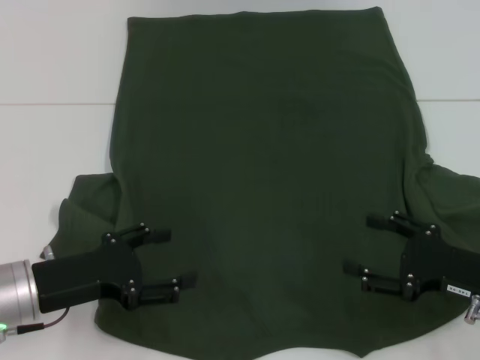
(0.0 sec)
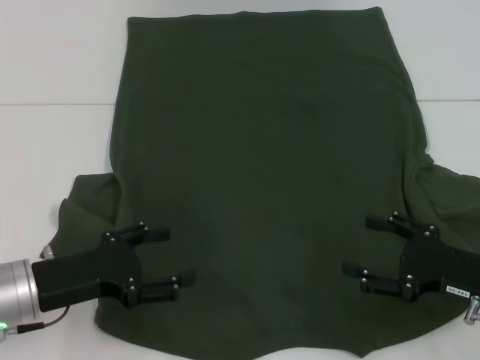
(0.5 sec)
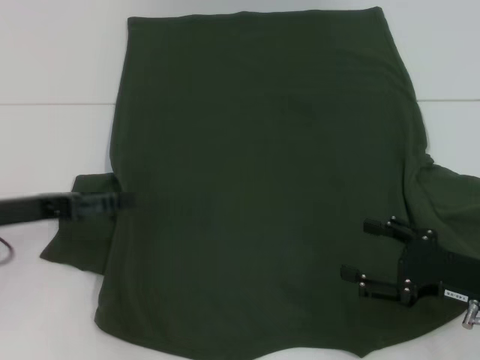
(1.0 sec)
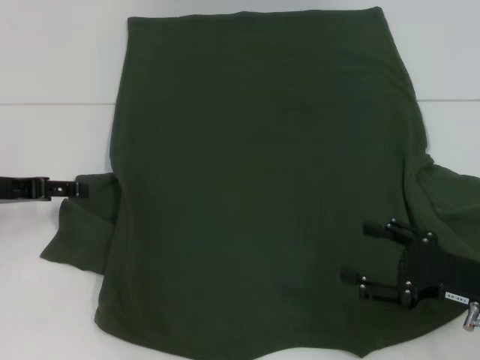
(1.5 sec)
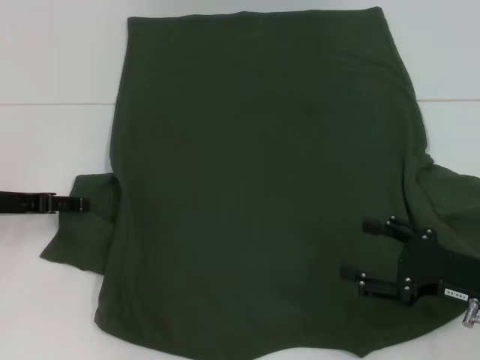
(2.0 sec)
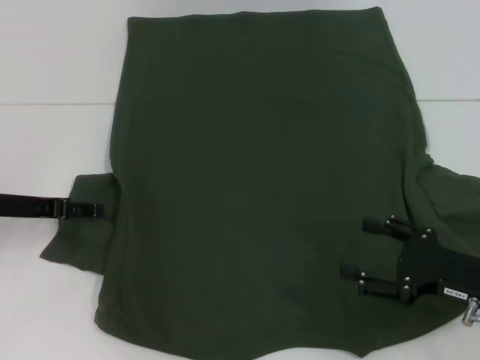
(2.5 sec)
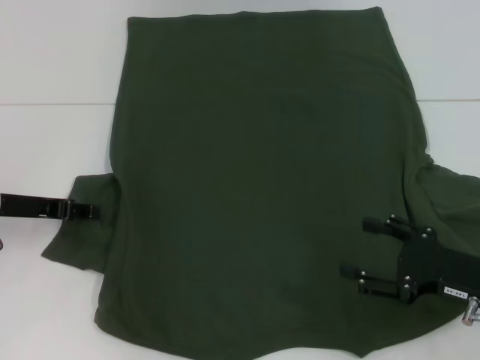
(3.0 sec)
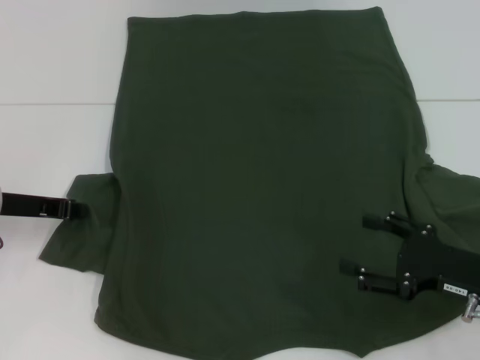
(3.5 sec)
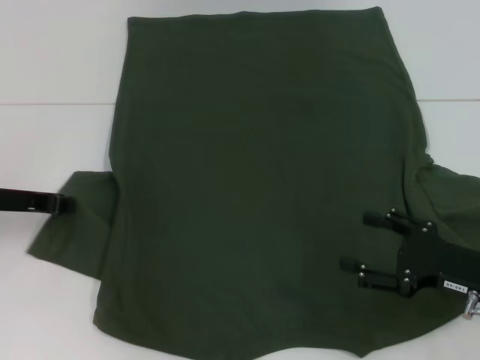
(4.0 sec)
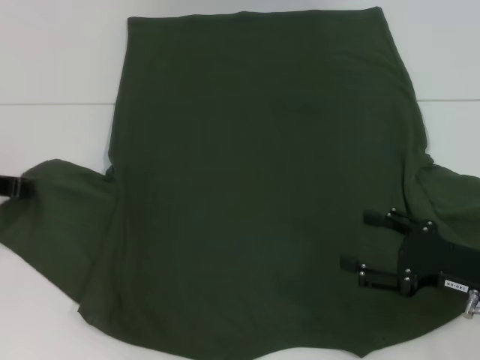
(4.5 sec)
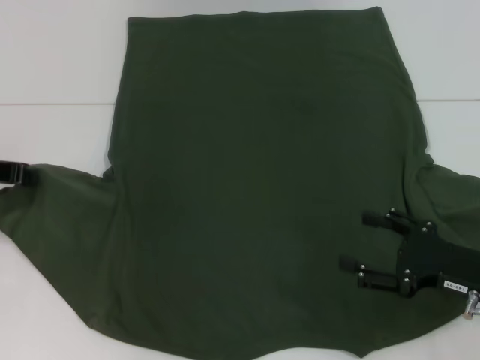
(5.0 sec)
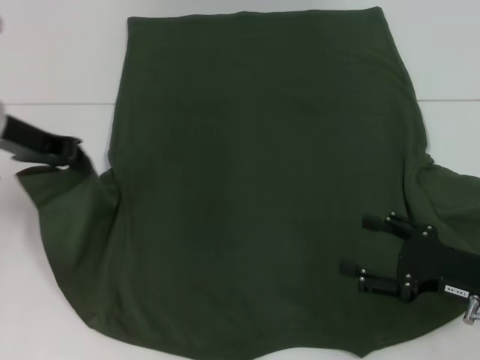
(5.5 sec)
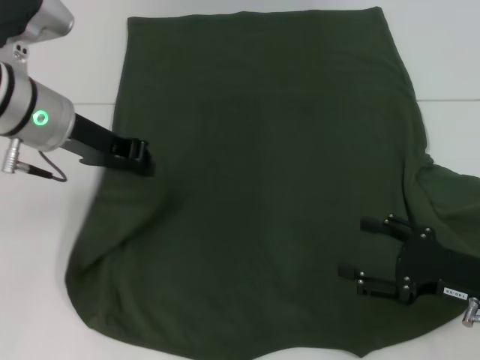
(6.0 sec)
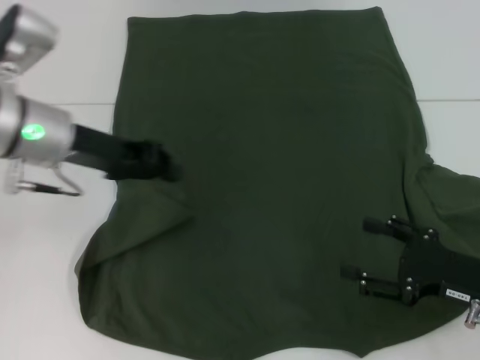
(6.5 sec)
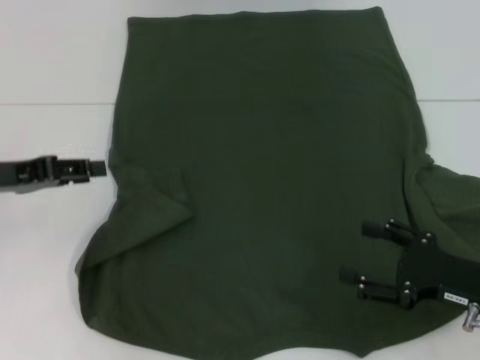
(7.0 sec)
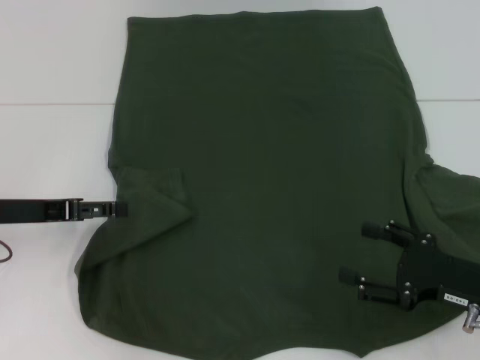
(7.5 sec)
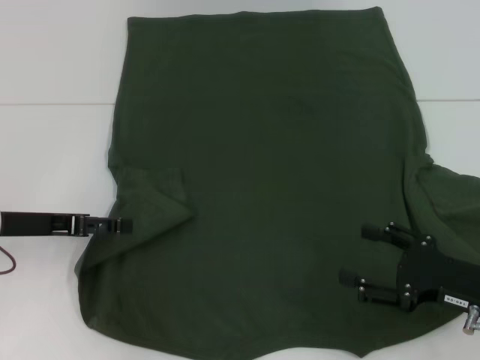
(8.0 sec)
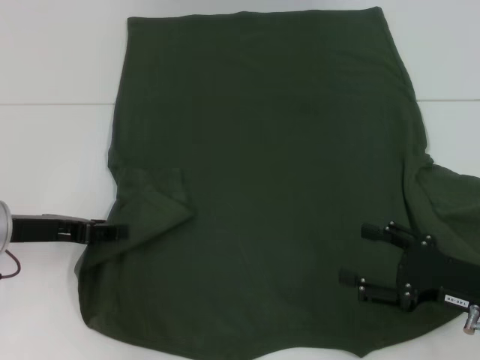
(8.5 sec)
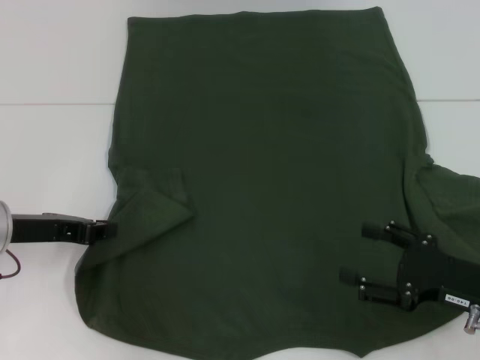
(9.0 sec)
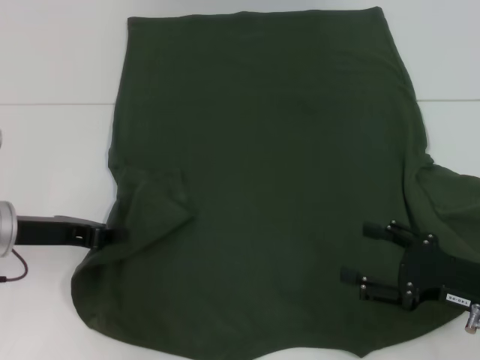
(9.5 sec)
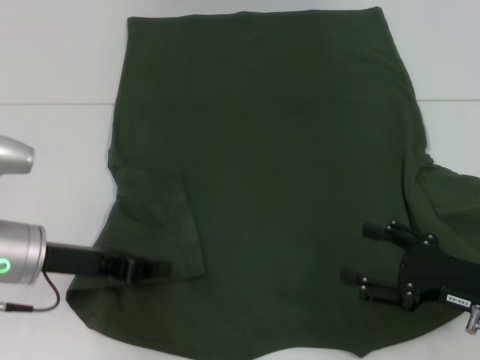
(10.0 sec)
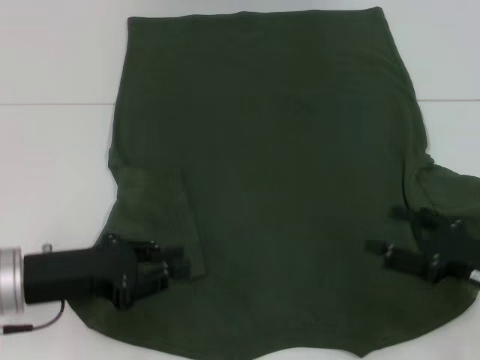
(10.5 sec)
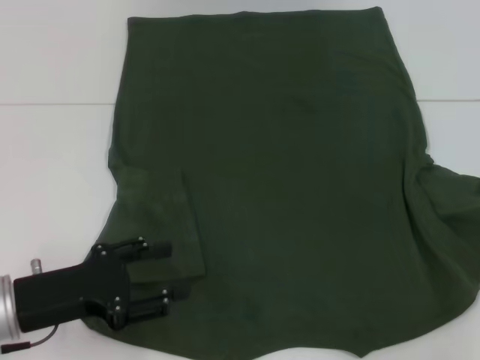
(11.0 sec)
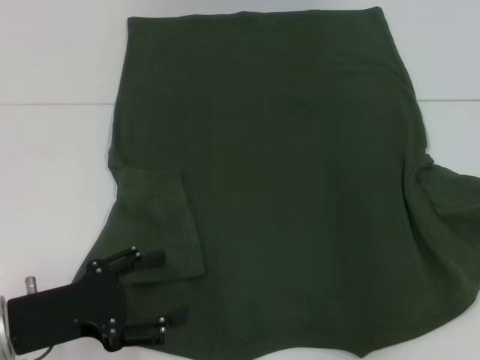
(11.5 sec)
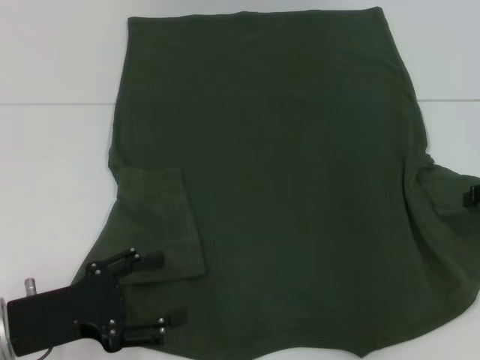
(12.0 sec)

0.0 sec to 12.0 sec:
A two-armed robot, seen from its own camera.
Step, 0.0 sec to 10.0 sec: Fold the bottom left sleeve with your left hand.
0.0 sec to 2.0 sec: The left gripper is displaced forward and to the left by approximately 10 cm.
2.0 sec to 4.0 sec: The left gripper closes.
4.0 sec to 6.0 sec: The left gripper goes approximately 15 cm to the right and upward.
6.0 sec to 8.0 sec: The left gripper travels downward, to the left and backward by some 15 cm, and opens up.
8.0 sec to 10.0 sec: The left gripper ends up some 5 cm from where it was, and closes up.
10.0 sec to 12.0 sec: The right gripper heads forward, upward and to the right, covering roughly 15 cm. The left gripper travels backward by some 10 cm, and opens its fingers.

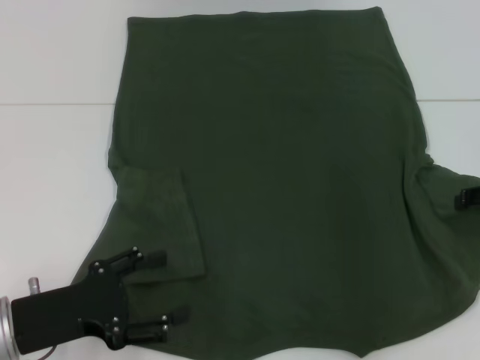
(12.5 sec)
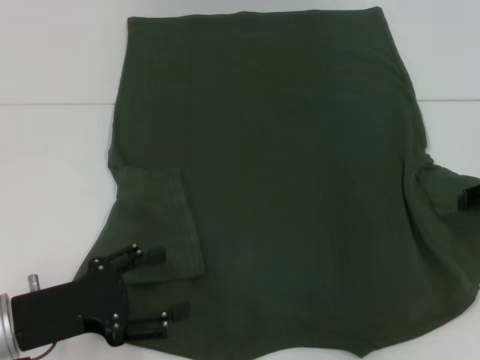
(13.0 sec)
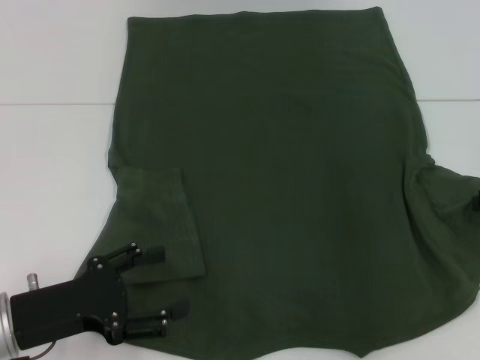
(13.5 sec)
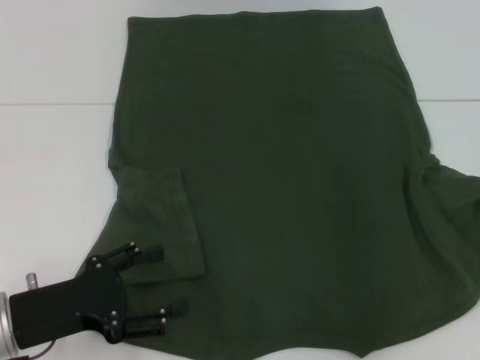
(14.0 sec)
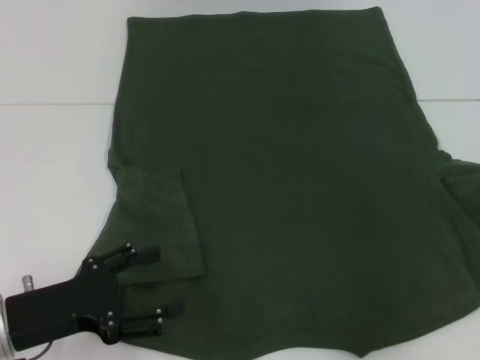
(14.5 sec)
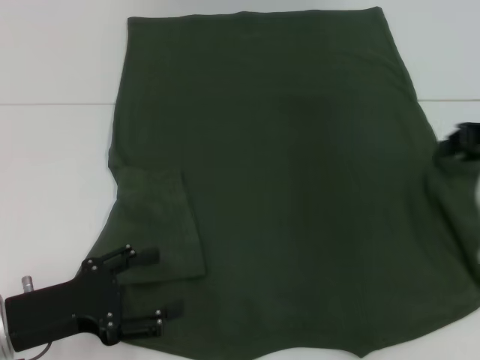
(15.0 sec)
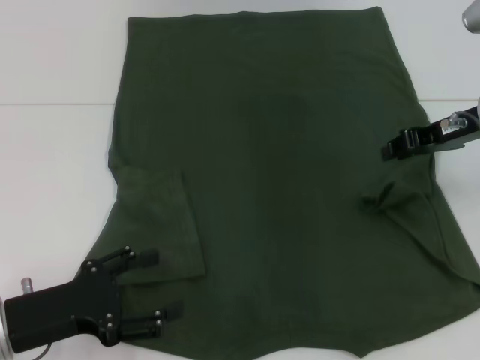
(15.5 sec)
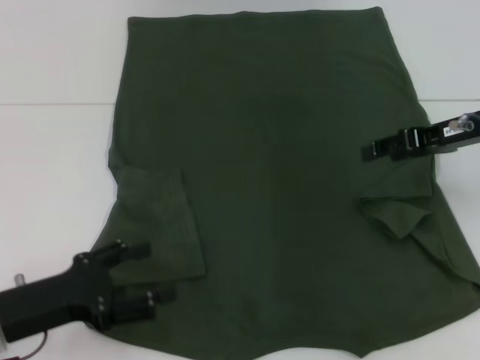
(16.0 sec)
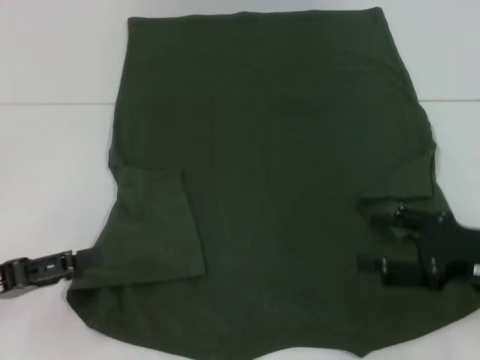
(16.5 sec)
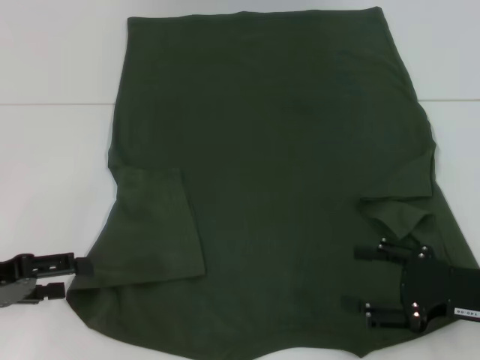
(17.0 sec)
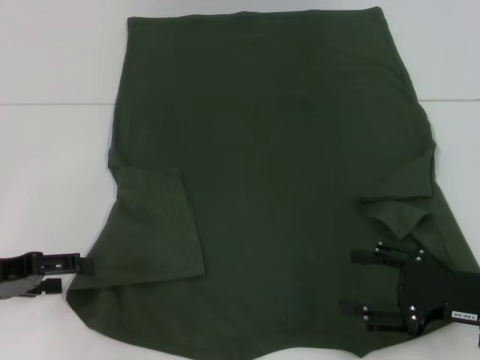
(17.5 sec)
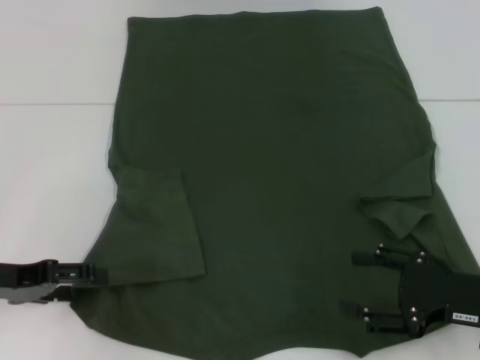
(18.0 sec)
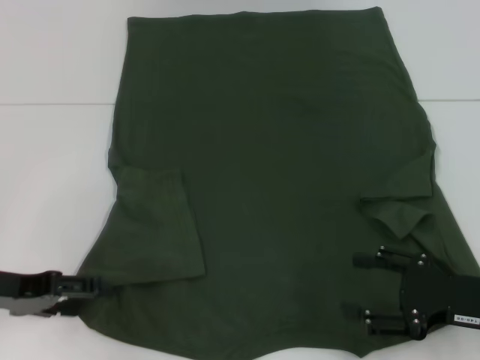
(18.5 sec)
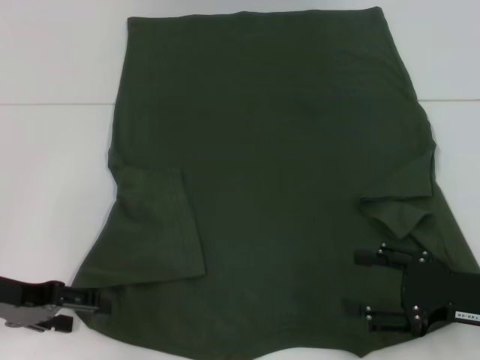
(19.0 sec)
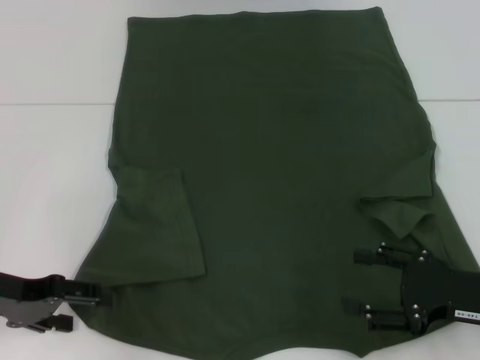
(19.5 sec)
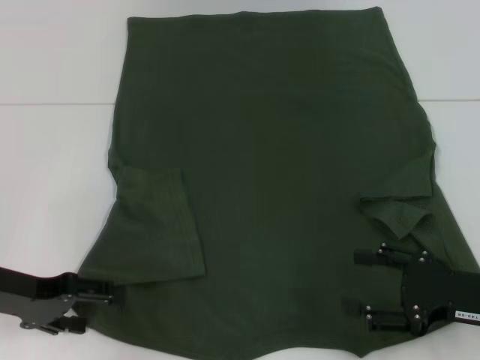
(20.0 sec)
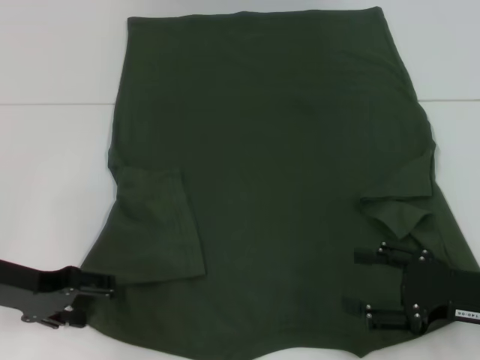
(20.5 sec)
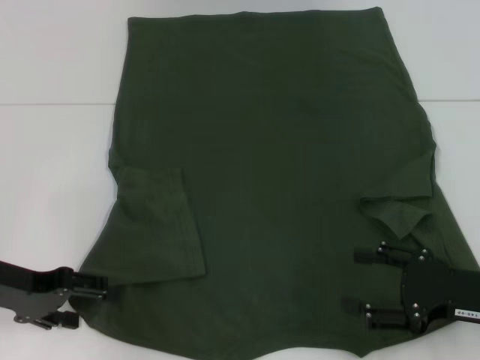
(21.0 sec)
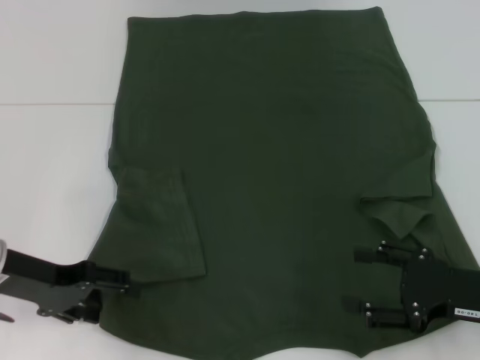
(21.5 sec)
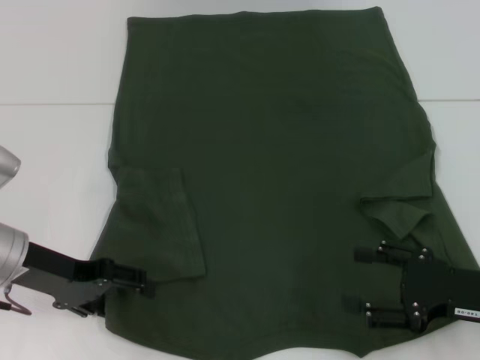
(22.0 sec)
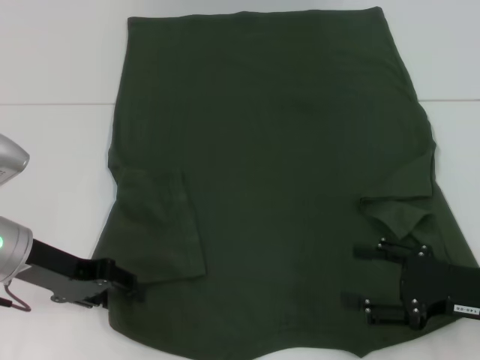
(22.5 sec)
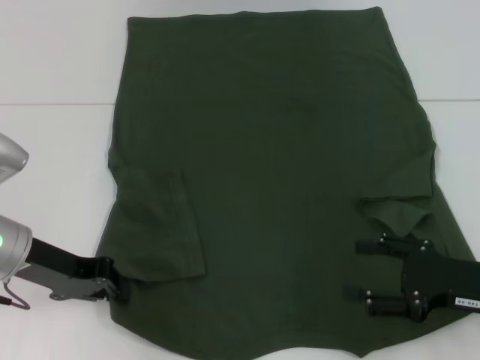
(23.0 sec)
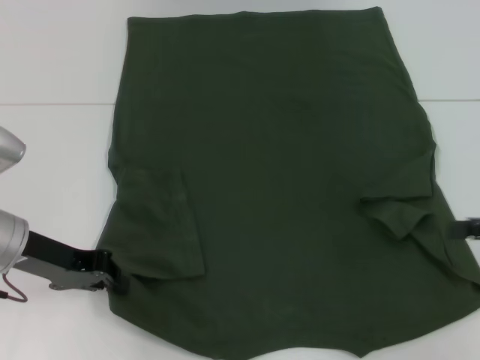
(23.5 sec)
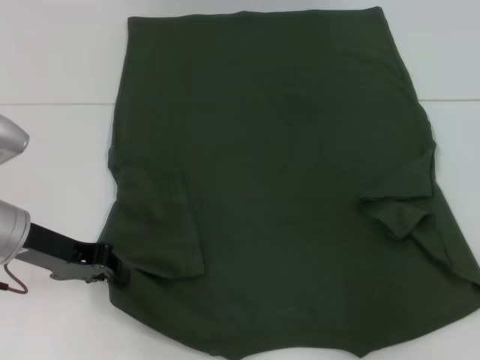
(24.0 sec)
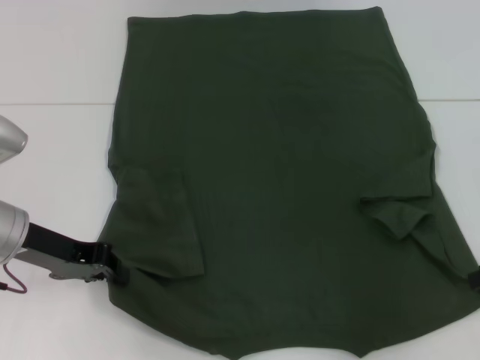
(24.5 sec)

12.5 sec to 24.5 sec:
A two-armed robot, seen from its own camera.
Step, 12.5 sec to 16.0 sec: Fold the bottom right sleeve with your right hand.
Step, 16.5 sec to 23.0 sec: Grab the bottom left corner with your left hand.
12.5 sec to 14.5 sec: The right gripper shifts by about 5 cm, and closes.
14.5 sec to 16.5 sec: The right gripper shifts roughly 15 cm to the left, backward and downward, and opens its fingers. Meanwhile the left gripper heads to the left, covering approximately 5 cm.
16.5 sec to 18.5 sec: The left gripper shifts some 5 cm forward.
18.5 sec to 20.5 sec: The grippers stay close to where they were, moving slightly.
20.5 sec to 22.5 sec: The grippers move only a little.
22.5 sec to 24.5 sec: The right gripper shifts roughly 10 cm to the right, forward and upward, while the left gripper closes up.

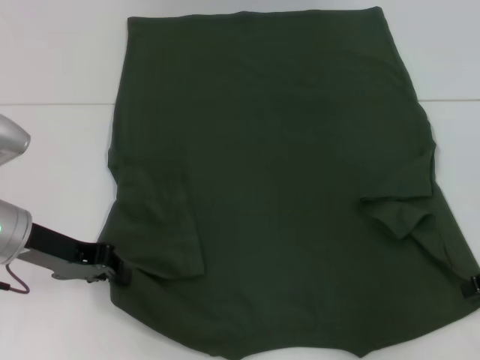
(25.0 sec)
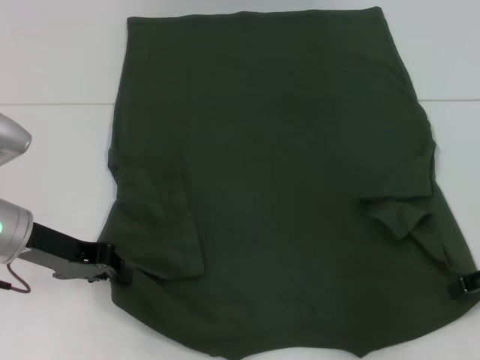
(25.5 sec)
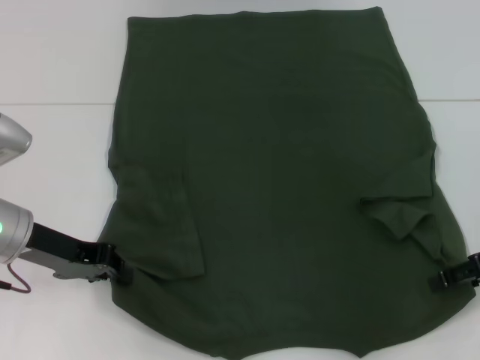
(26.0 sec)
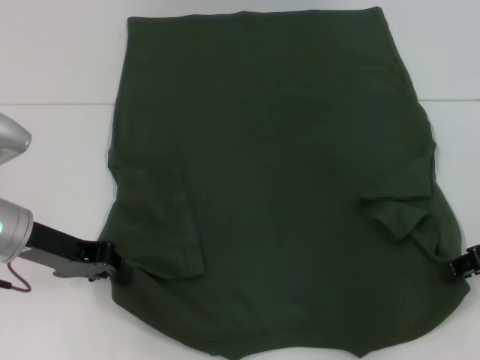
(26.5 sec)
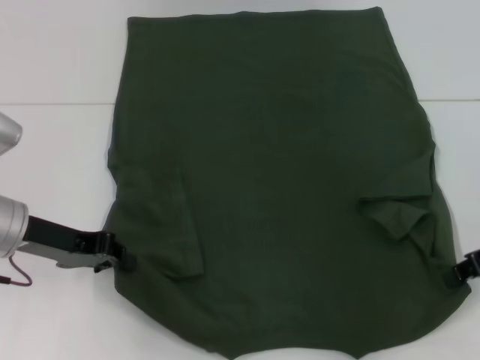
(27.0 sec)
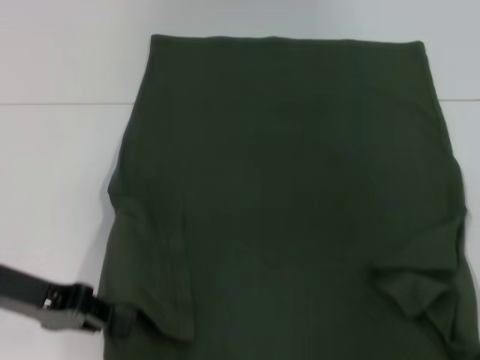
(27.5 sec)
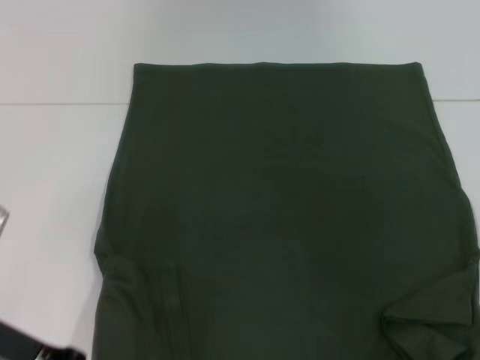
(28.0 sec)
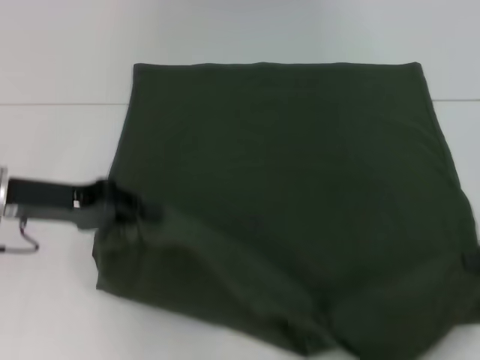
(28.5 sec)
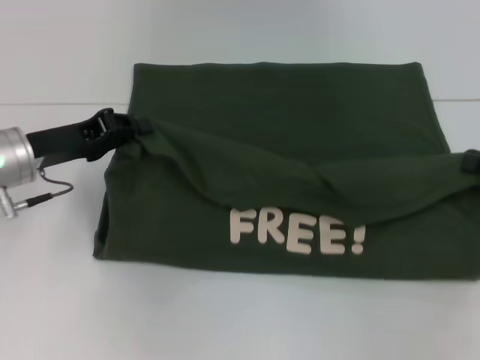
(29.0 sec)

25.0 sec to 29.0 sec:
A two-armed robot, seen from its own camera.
25.0 sec to 27.0 sec: The right gripper closes.
27.0 sec to 29.0 sec: The left gripper moves roughly 10 cm backward and comes back. Meanwhile the right gripper shifts roughly 5 cm to the right.
